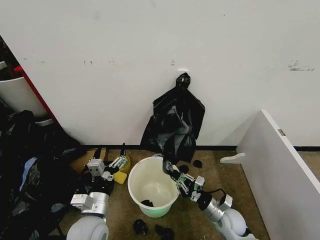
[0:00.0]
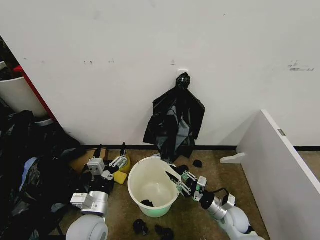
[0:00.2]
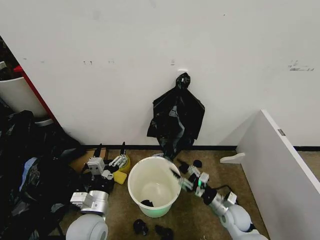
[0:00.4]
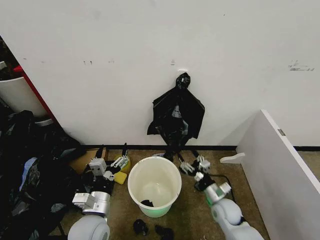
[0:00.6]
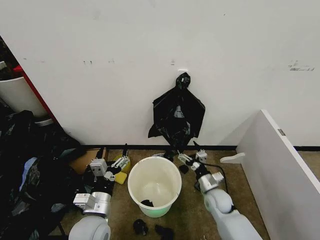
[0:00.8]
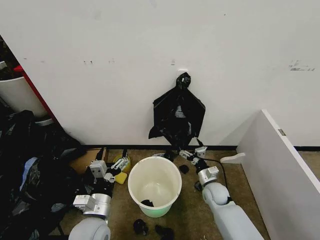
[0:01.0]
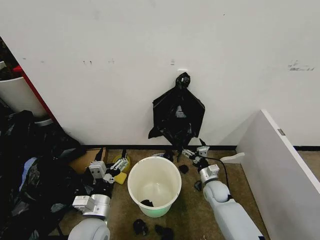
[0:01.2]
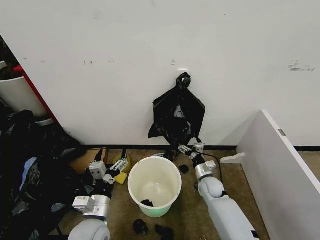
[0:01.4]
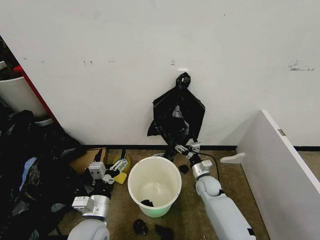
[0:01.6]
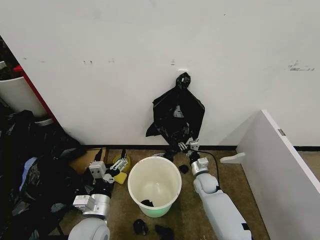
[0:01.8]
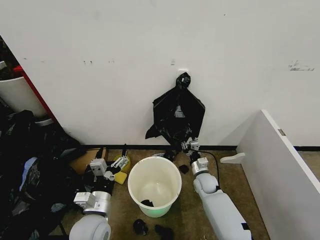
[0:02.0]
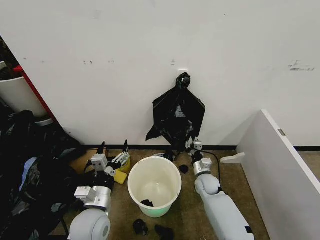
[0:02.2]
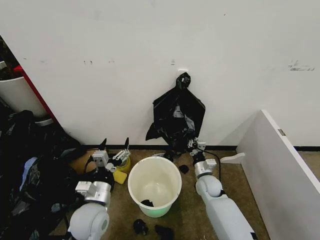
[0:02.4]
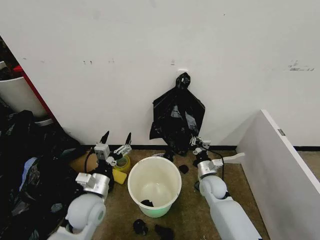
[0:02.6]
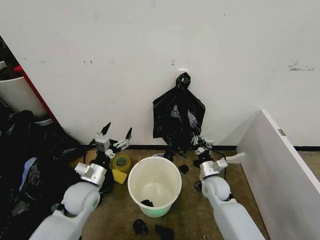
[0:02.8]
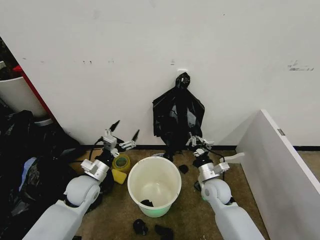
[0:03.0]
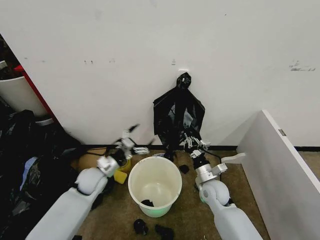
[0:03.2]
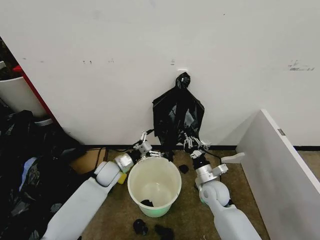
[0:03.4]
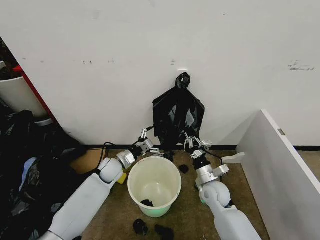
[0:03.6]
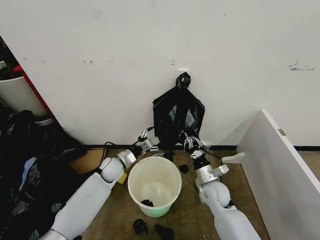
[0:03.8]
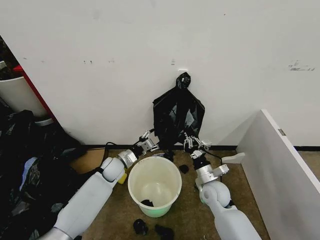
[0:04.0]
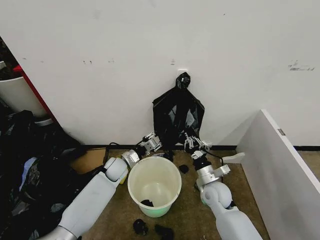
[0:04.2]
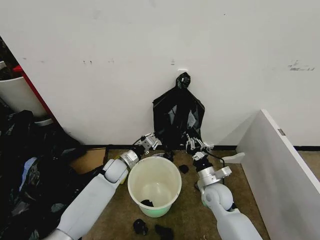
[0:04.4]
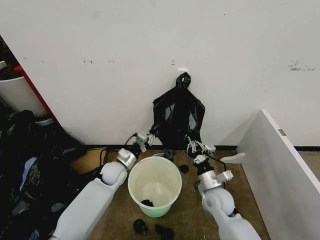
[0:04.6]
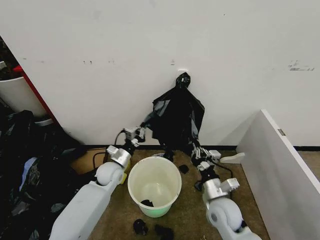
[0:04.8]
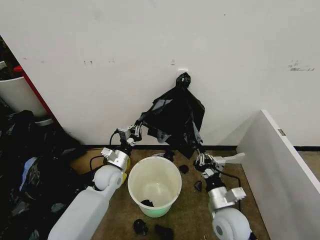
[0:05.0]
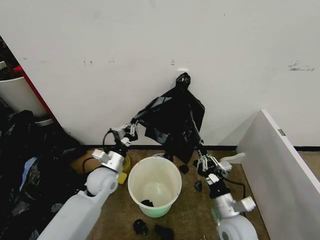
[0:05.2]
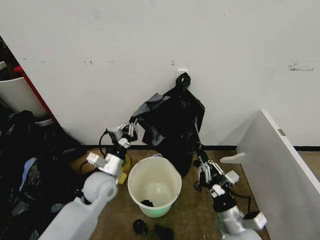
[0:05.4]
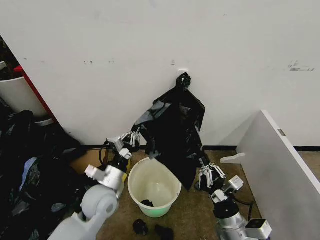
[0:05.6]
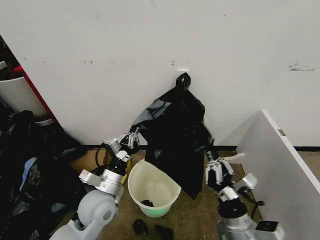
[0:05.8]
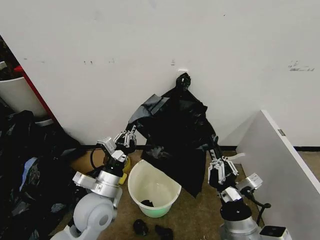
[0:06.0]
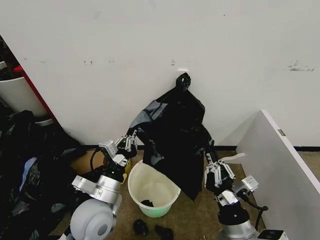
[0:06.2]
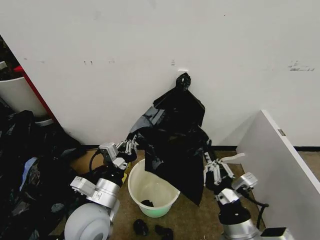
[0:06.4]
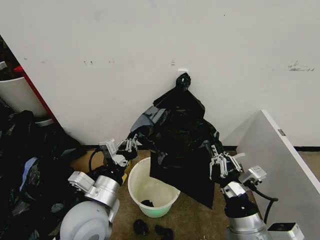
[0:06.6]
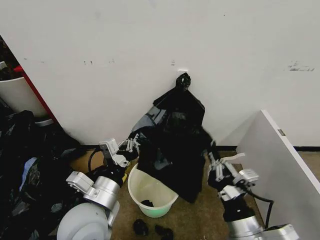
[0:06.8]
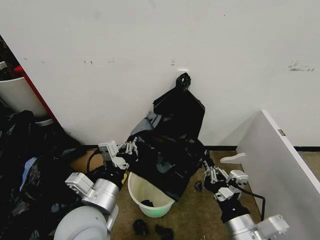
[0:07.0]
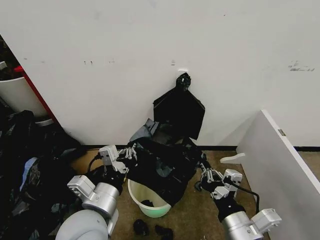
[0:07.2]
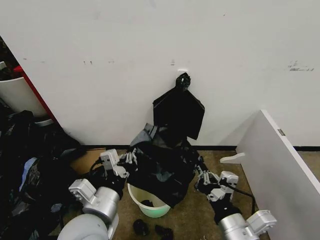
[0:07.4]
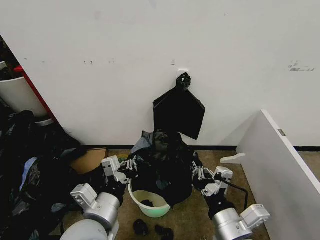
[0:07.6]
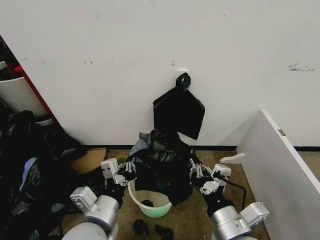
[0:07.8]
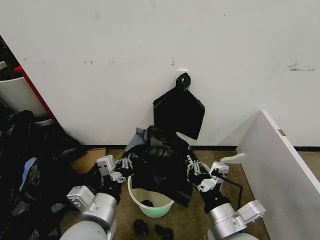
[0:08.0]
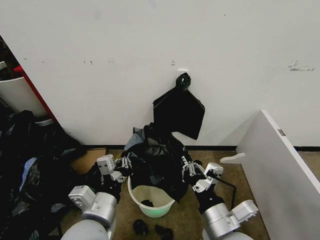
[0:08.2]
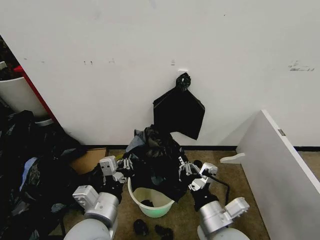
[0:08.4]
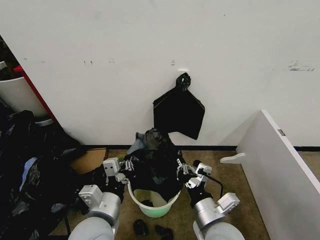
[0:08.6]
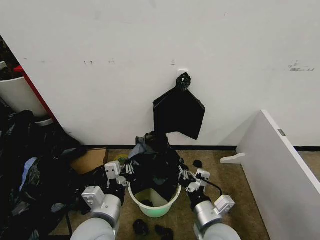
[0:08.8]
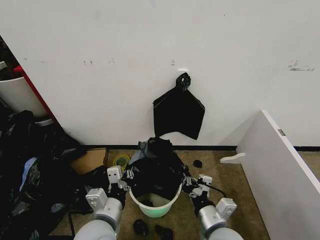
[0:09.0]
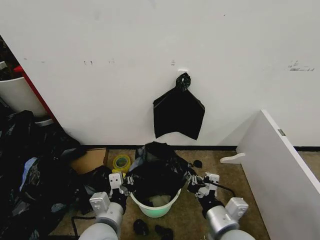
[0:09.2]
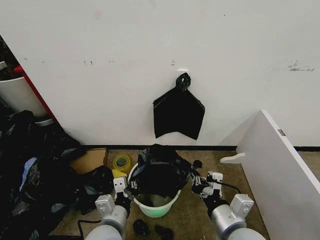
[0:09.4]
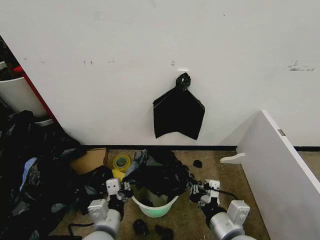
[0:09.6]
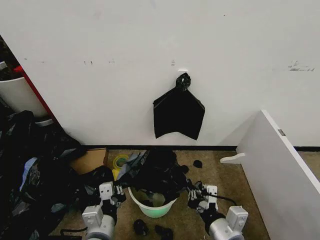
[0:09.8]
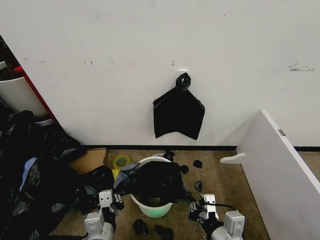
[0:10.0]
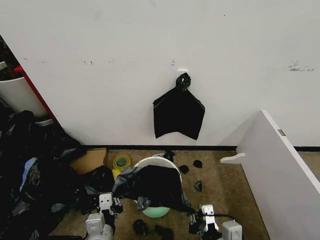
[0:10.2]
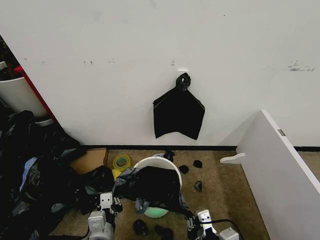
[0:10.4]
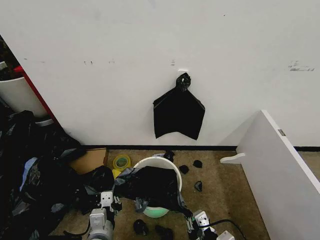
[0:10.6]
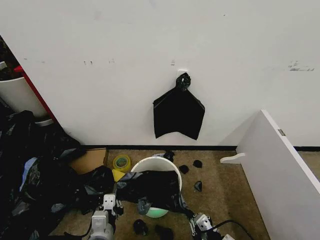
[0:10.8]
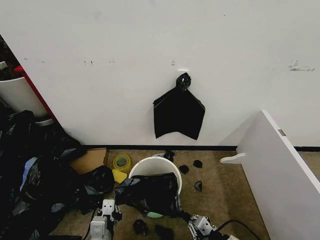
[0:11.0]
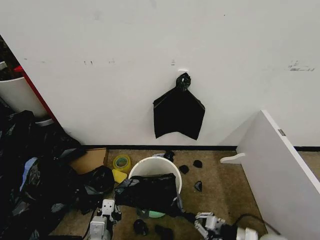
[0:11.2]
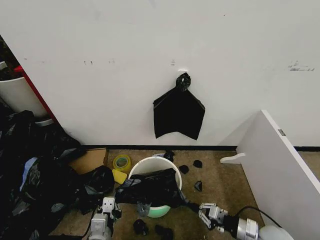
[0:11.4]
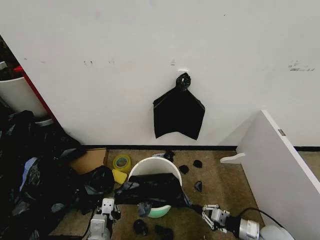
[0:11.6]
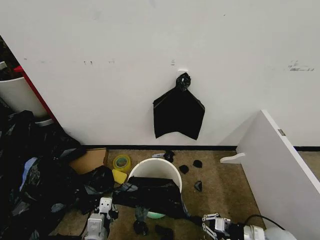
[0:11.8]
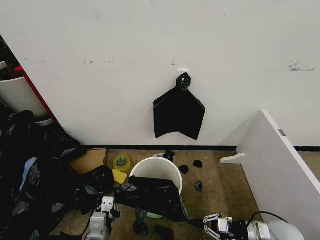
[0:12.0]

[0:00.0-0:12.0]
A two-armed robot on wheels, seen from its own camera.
Task of the whole recording: Place the garbage bag over the trash bin.
0:00.0 to 0:01.6: The right gripper goes about 15 cm forward, and opens.
0:01.6 to 0:03.0: The left gripper moves forward and to the left, about 15 cm. Meanwhile the right gripper goes some 10 cm upward and backward, and closes its fingers.
0:03.0 to 0:04.4: The left gripper goes about 15 cm forward, to the right and downward, and closes up.
0:04.4 to 0:06.0: Both grippers travel together backward and upward, approximately 25 cm.
0:06.0 to 0:07.6: The left gripper is displaced backward and upward by some 10 cm. The right gripper heads upward, covering roughly 5 cm.
0:07.6 to 0:09.0: Both grippers travel together downward, some 5 cm.
0:09.0 to 0:10.4: The left gripper goes about 5 cm downward. The right gripper shifts approximately 5 cm backward.
0:10.4 to 0:12.0: The right gripper heads to the right, forward and downward, covering about 25 cm.

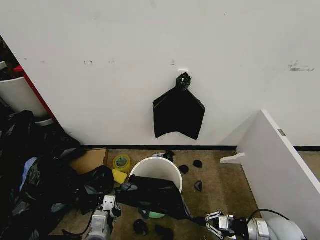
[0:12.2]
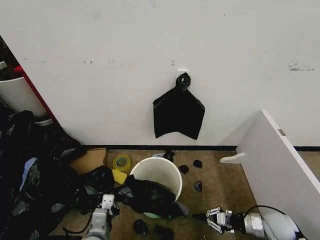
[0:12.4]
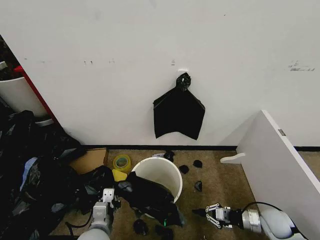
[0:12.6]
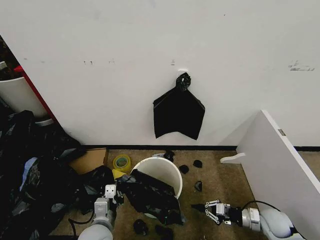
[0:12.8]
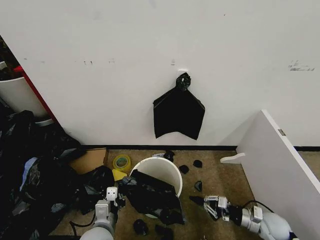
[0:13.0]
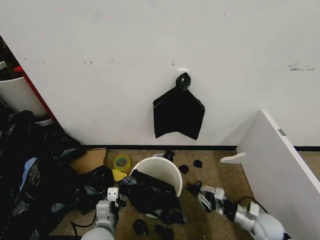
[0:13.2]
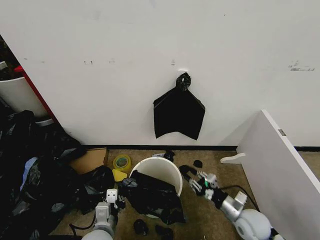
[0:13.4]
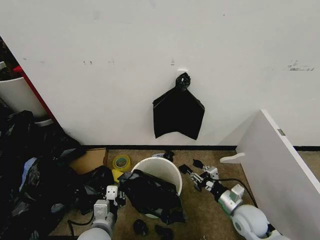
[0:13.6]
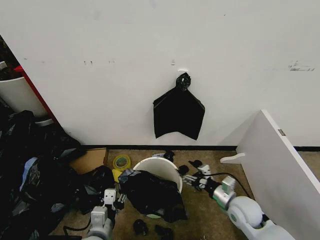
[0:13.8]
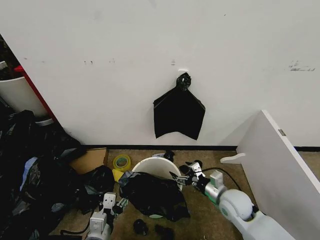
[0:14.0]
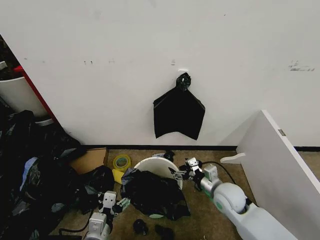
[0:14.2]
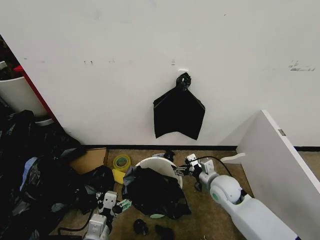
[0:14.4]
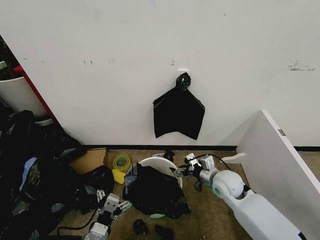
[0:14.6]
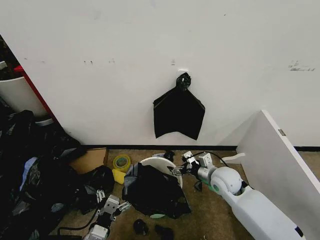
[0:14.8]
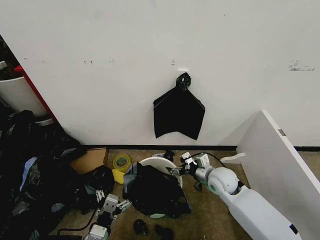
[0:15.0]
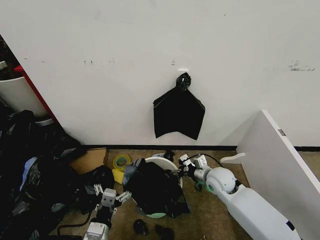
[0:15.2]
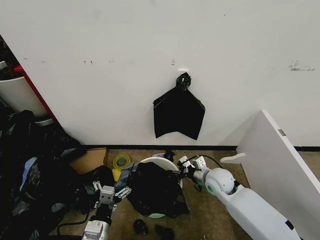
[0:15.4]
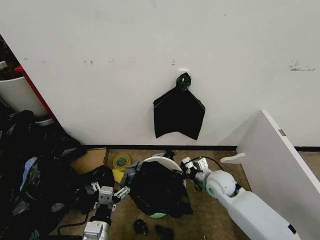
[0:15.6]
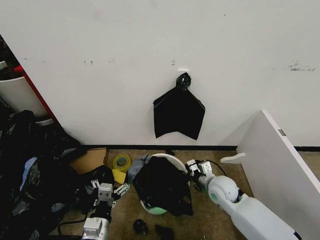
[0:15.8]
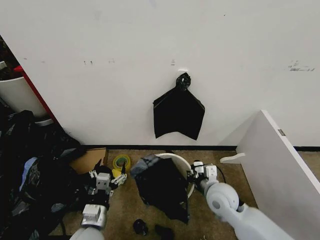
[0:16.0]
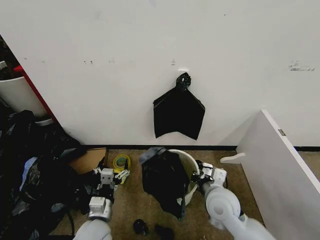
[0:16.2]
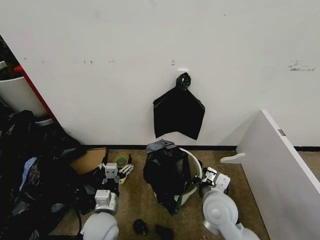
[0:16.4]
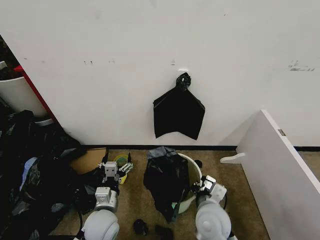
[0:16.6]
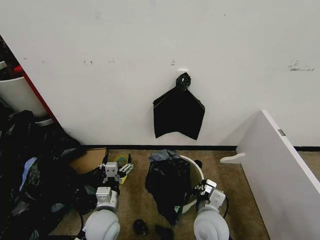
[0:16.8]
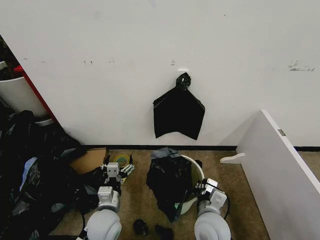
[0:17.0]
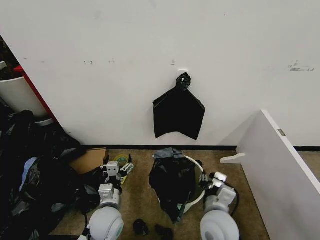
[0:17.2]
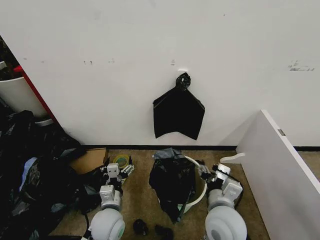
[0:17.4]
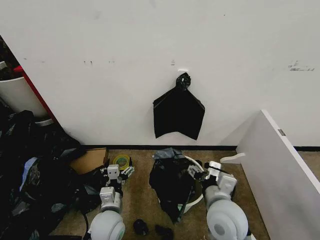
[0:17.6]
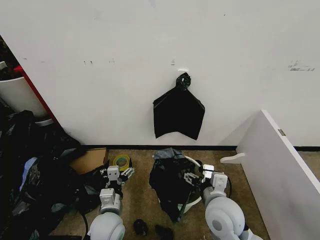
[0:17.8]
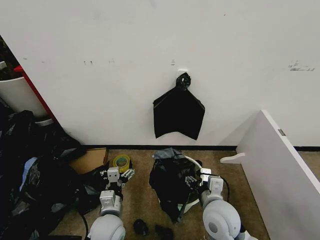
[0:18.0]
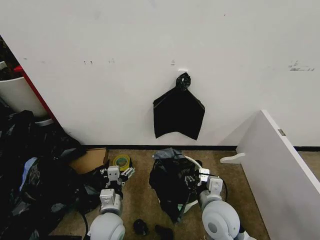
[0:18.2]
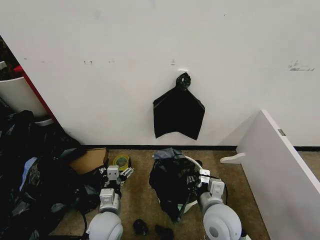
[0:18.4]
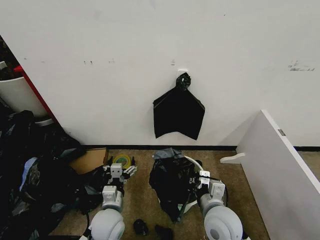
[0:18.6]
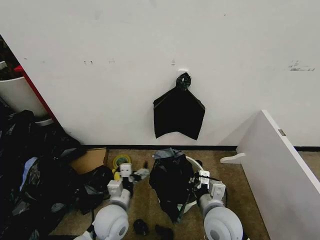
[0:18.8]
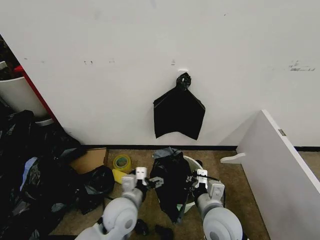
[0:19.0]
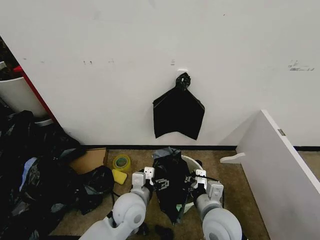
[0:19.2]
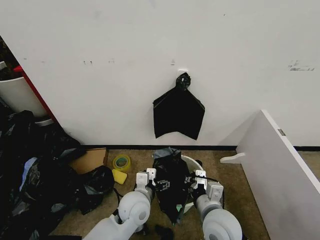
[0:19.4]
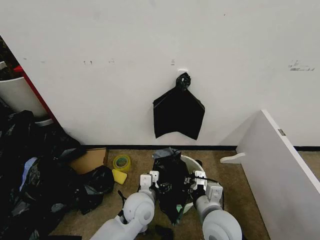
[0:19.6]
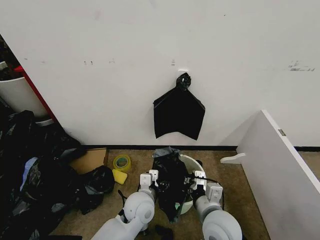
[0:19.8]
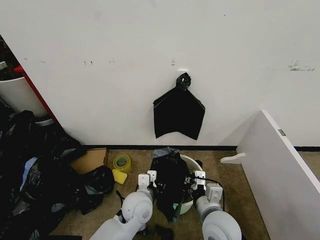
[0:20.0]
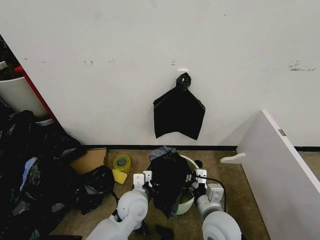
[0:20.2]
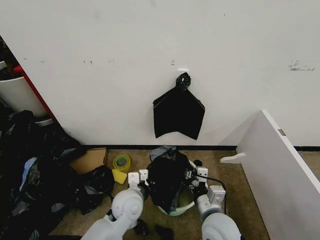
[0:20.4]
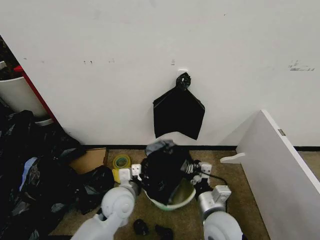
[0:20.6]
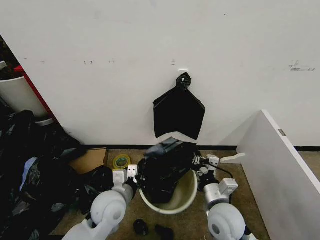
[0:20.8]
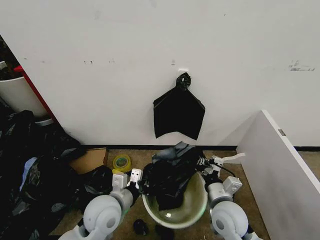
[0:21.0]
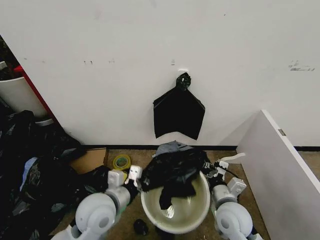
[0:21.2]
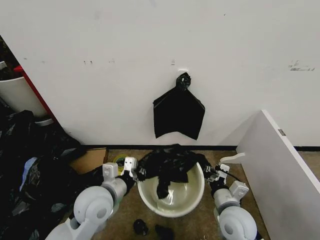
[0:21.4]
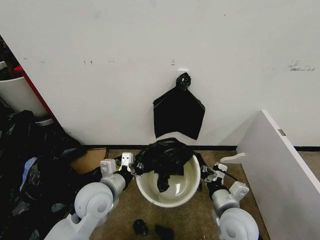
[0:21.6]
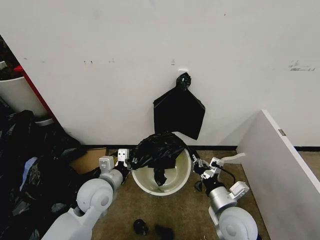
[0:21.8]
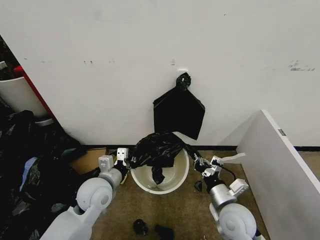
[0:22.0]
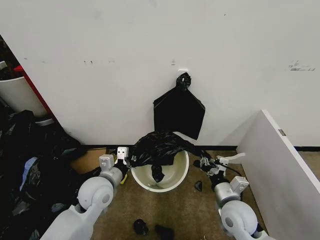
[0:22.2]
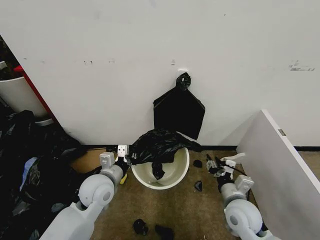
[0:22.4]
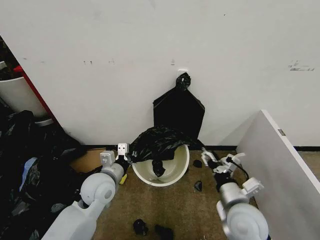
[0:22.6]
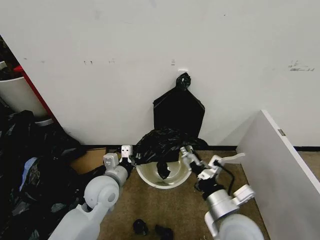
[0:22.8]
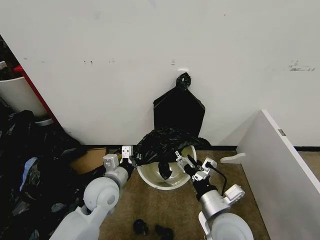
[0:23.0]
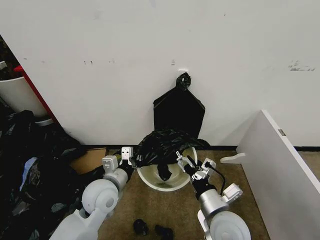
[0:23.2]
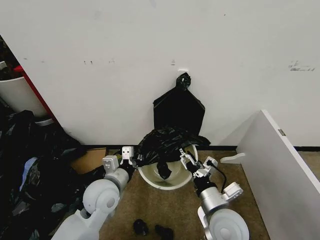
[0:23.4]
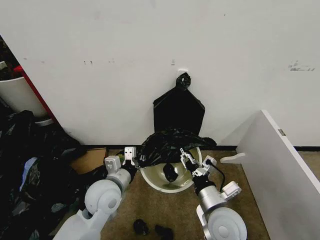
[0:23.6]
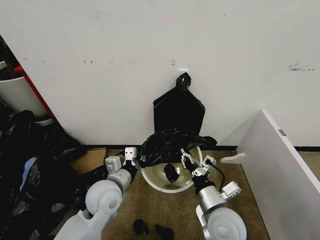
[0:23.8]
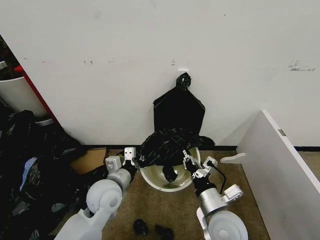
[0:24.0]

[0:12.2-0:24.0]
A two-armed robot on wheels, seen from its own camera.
Task of the whole recording: Place the garbage bag over the trash bin.
0:12.2 to 0:13.6: The right gripper heads to the left, covering some 10 cm, and opens.
0:13.6 to 0:15.2: The left gripper opens, while the right gripper is displaced forward and to the left by some 15 cm.
0:15.2 to 0:16.6: The right gripper is displaced backward and to the left by approximately 15 cm, and closes up, while the left gripper travels forward by some 10 cm.
0:16.6 to 0:18.2: The right gripper opens up.
0:18.2 to 0:19.6: The right gripper closes up. Meanwhile the left gripper shifts approximately 10 cm to the right and forward.
0:19.6 to 0:21.0: The left gripper goes about 10 cm to the left and upward, and closes; the right gripper changes place by some 5 cm.
0:21.0 to 0:22.6: The left gripper shifts approximately 5 cm forward; the right gripper opens.
0:22.6 to 0:24.0: The right gripper goes some 5 cm to the left, and closes its fingers.
